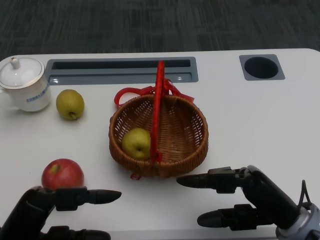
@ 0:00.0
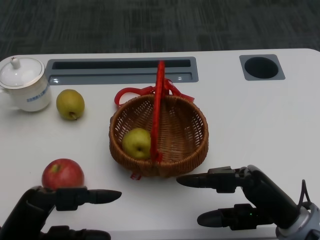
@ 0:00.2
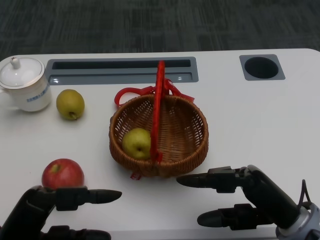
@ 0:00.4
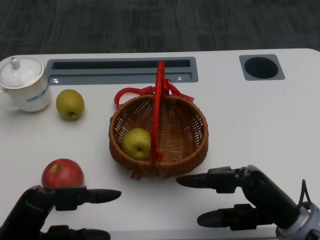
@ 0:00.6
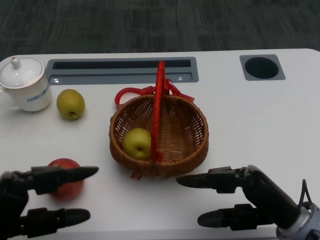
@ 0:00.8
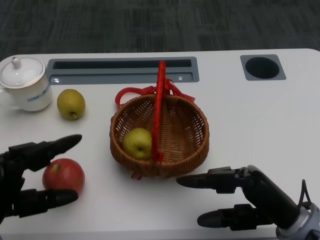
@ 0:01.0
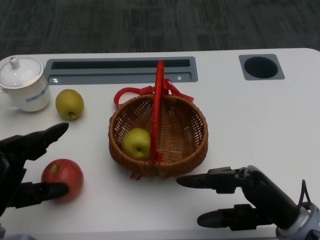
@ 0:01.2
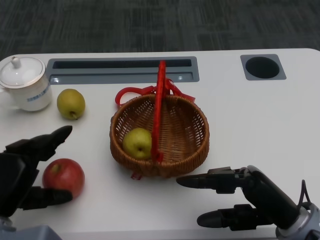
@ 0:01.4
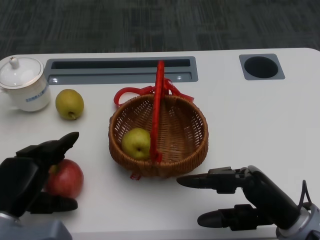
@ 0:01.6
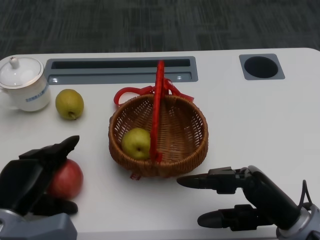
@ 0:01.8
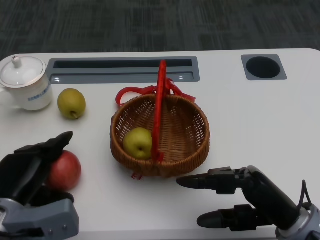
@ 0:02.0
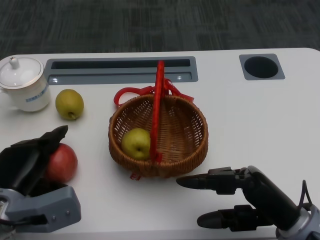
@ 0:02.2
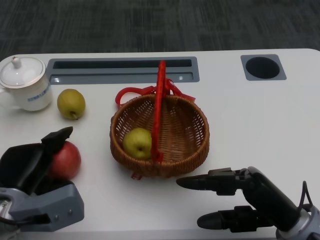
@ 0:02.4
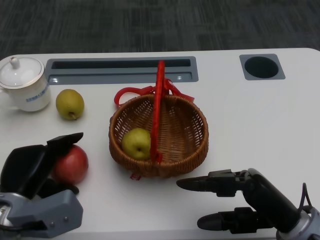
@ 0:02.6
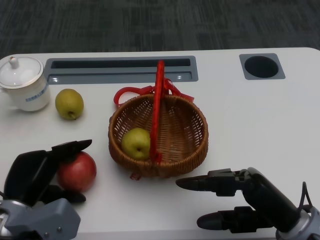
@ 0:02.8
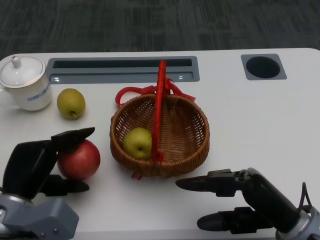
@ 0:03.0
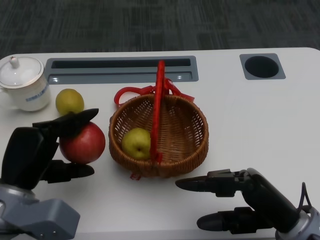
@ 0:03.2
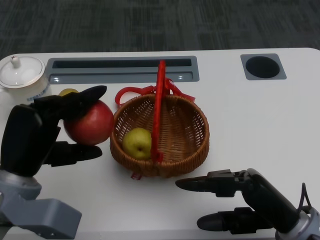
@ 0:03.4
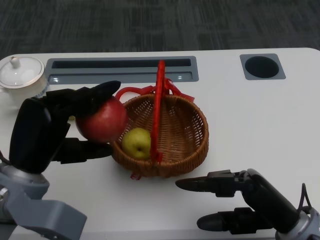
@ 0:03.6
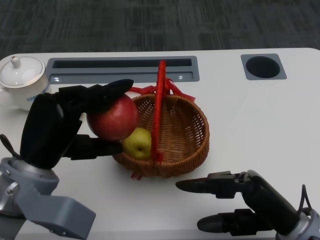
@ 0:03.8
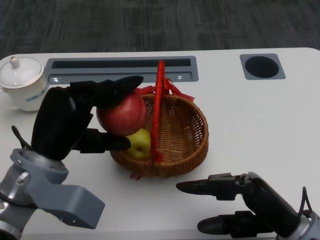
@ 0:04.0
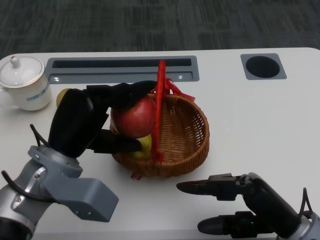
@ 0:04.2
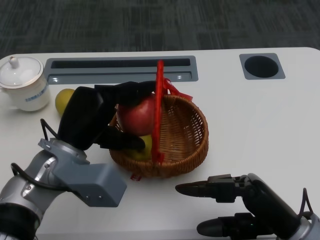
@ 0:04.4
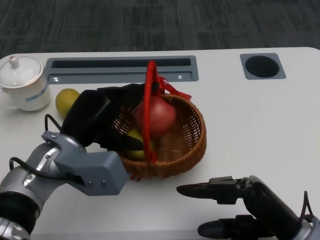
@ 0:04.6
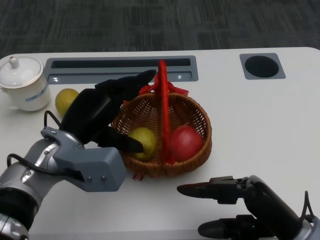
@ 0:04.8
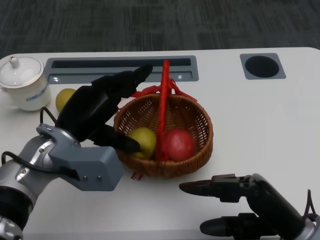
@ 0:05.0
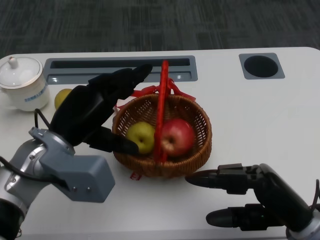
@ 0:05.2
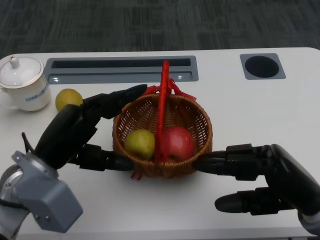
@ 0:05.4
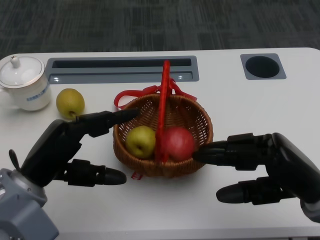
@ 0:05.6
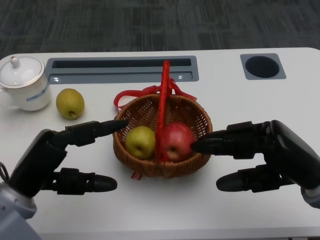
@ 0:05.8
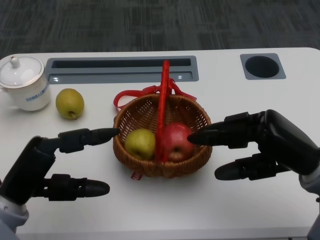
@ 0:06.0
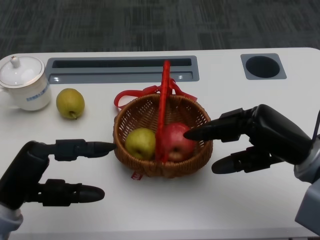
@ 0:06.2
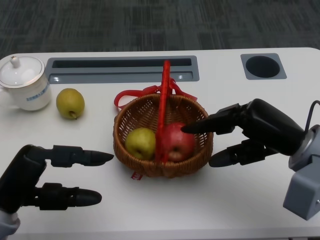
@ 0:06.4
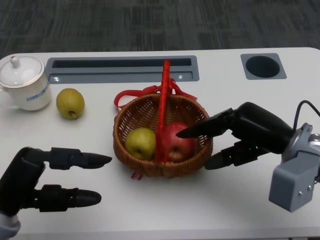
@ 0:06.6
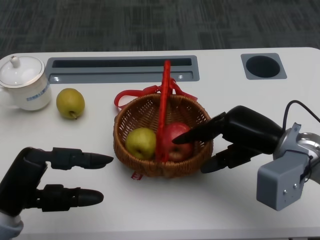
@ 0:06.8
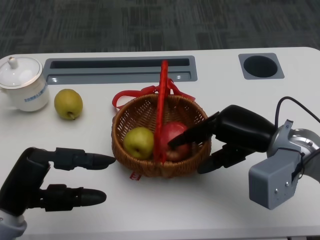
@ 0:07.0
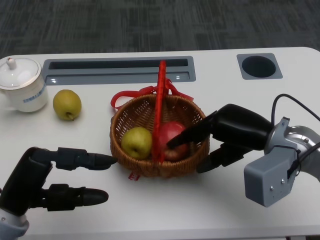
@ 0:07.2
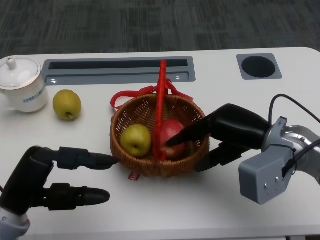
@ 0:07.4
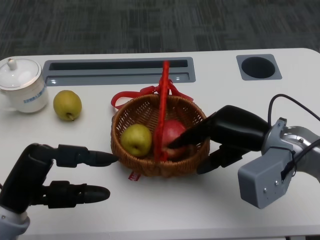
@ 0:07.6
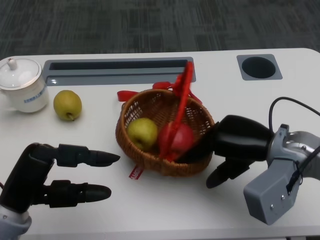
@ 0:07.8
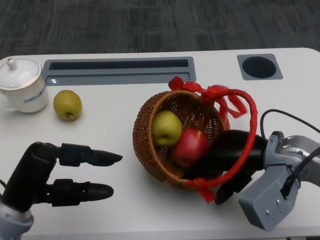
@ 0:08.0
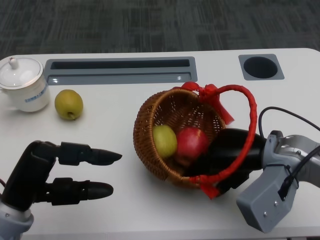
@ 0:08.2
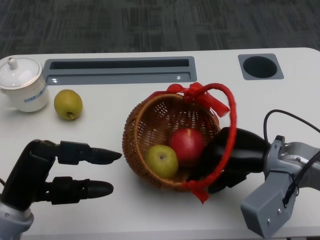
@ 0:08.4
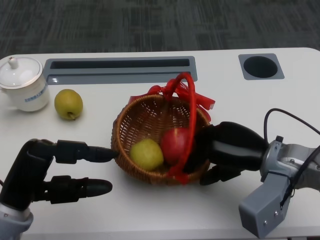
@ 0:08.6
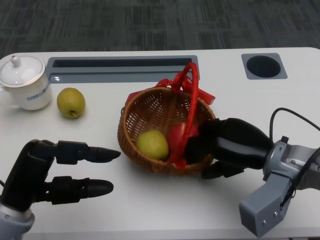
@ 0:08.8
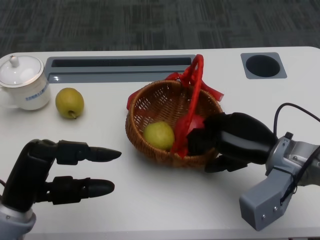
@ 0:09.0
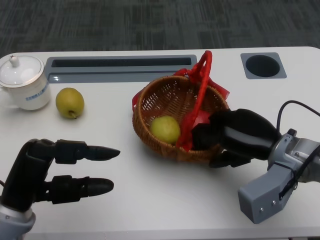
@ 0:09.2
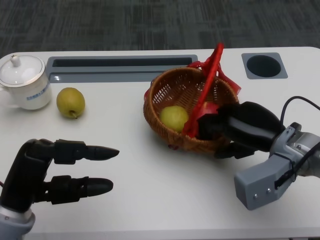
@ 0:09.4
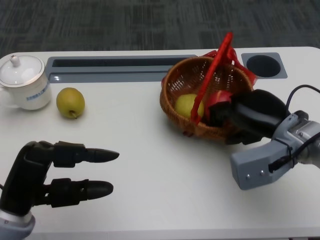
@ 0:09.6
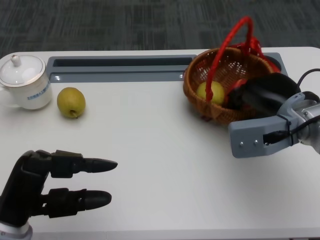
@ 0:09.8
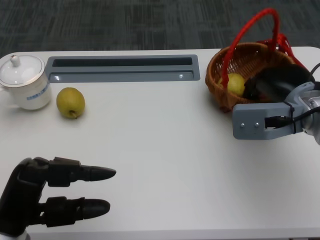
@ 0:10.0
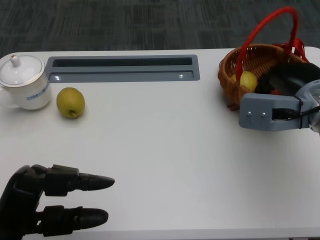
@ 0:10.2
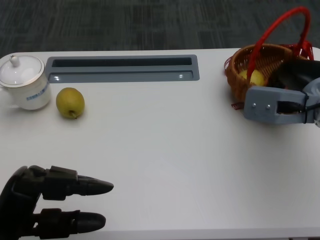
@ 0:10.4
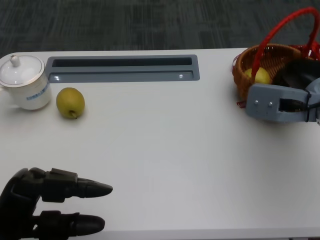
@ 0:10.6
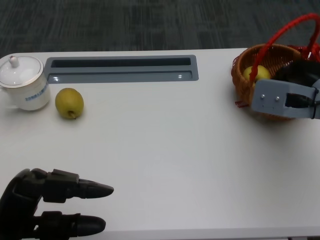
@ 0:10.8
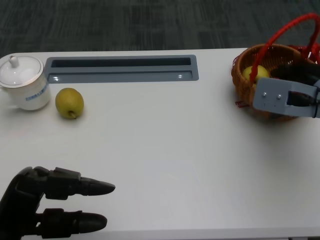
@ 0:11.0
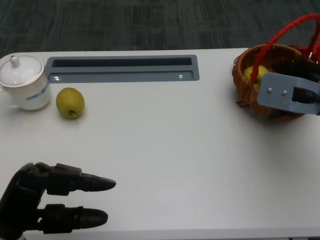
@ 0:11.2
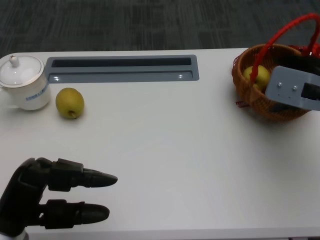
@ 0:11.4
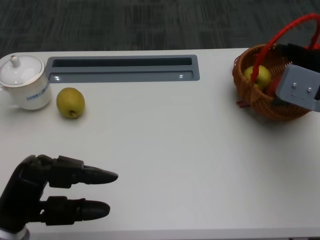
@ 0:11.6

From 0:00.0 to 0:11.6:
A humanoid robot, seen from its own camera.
Step, from 0:00.6 to 0:01.8: Grasp the apple with the left gripper.
Step, from 0:02.0 to 0:04.0: Place the apple into the basket with the left gripper.
Step, from 0:04.2 to 0:06.8: Grasp the basket with the right gripper.
Step, from 0:07.2 to 0:08.8: Move the basket to the front of the table with the right gripper.
From 0:02.8 to 0:04.4: The left hand heads upward and to the right, covering roughly 10 cm.
From 0:04.4 to 0:05.8: The right hand goes roughly 5 cm upward, while the left hand heads to the left and backward, covering roughly 10 cm.
From 0:05.8 to 0:07.2: The right hand heads forward and to the left, covering approximately 10 cm.
From 0:08.8 to 0:10.2: The right hand shifts approximately 10 cm forward and upward.
From 0:10.2 to 0:11.6: The hands move only a little.

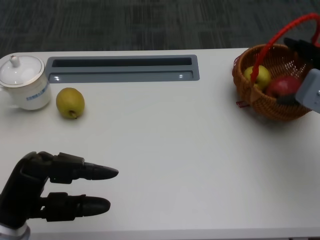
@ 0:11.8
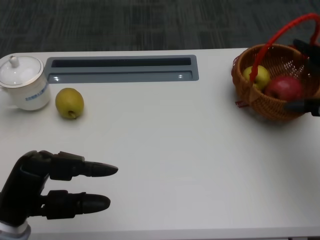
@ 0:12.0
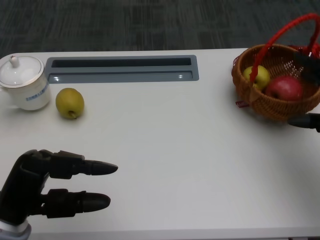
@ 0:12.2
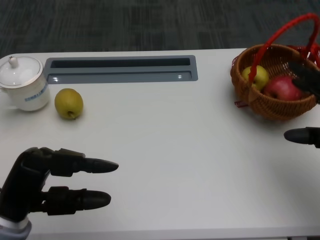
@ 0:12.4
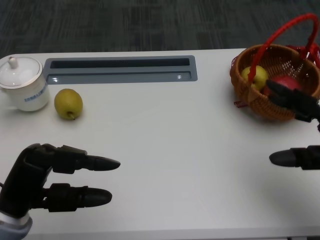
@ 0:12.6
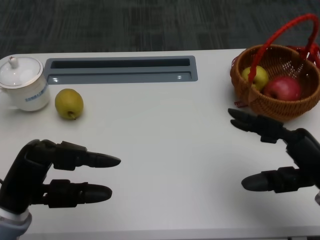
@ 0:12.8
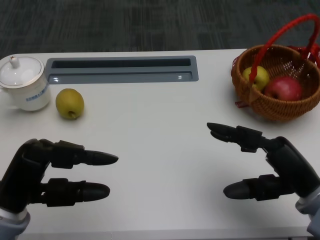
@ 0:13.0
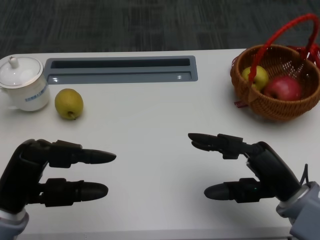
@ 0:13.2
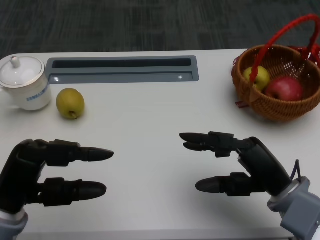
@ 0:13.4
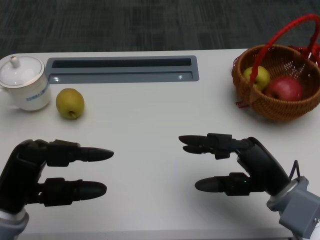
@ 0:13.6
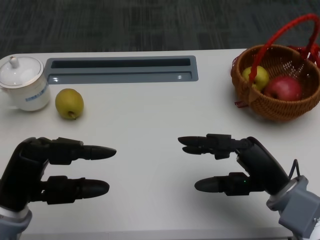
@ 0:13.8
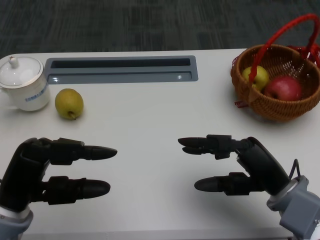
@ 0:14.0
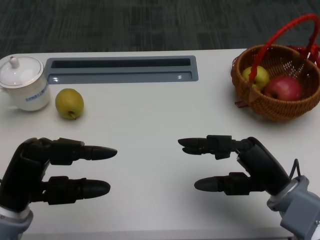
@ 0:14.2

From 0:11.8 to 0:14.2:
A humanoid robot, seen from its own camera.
From 0:11.8 to 0:13.0: The right hand travels backward and downward by approximately 15 cm.
From 0:13.0 to 0:14.2: The hands make only small movements.
